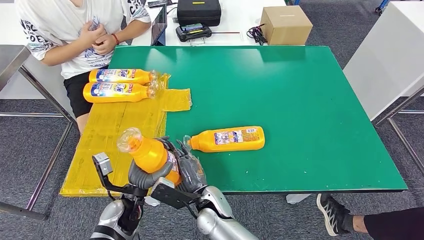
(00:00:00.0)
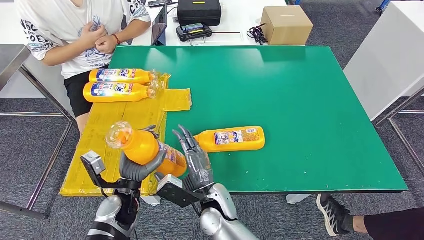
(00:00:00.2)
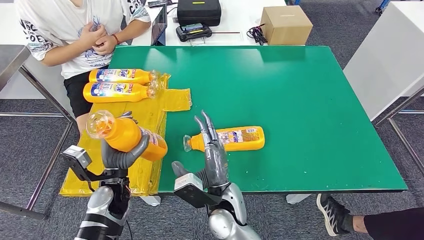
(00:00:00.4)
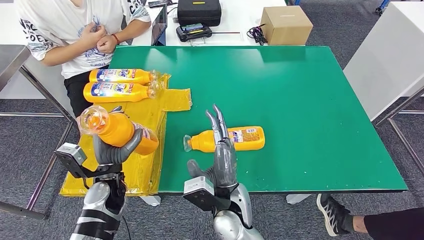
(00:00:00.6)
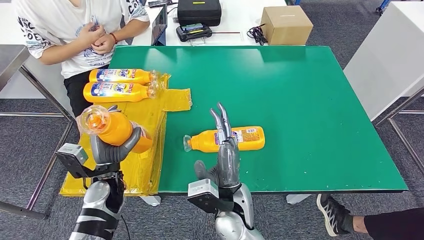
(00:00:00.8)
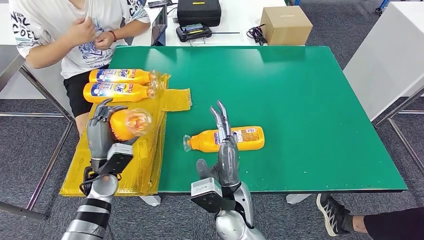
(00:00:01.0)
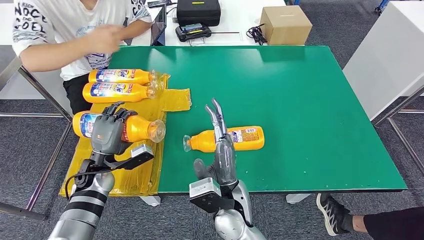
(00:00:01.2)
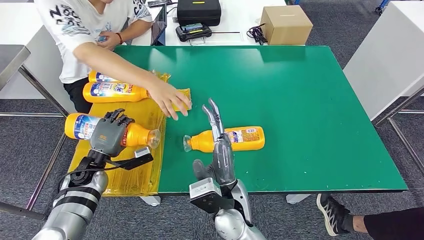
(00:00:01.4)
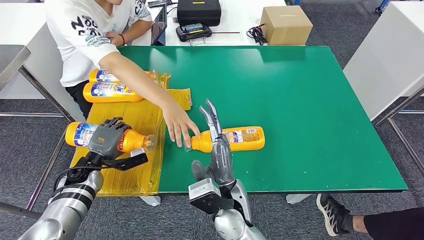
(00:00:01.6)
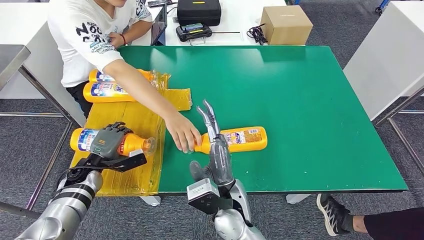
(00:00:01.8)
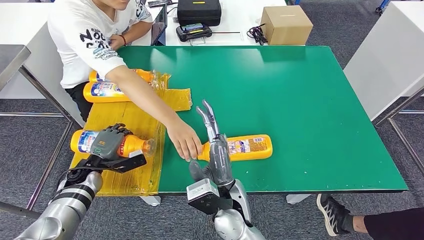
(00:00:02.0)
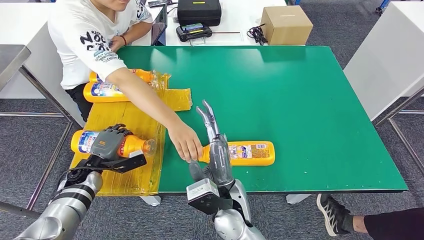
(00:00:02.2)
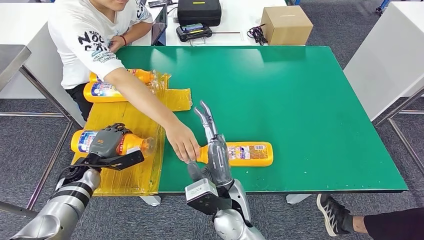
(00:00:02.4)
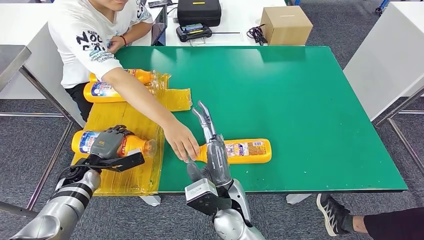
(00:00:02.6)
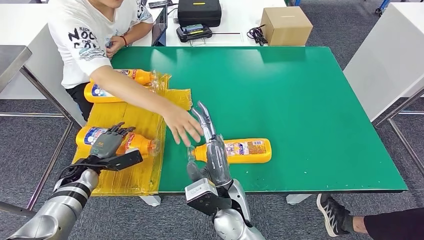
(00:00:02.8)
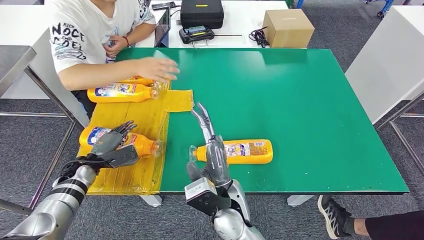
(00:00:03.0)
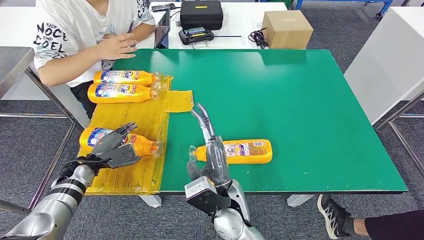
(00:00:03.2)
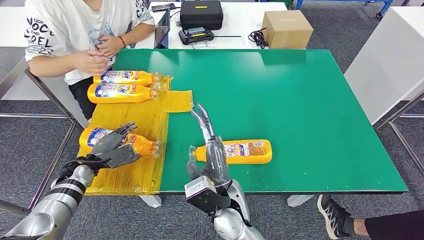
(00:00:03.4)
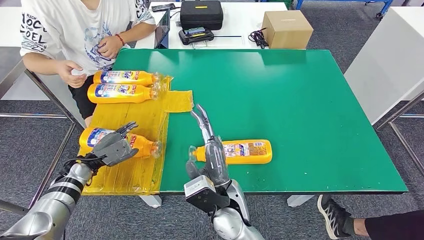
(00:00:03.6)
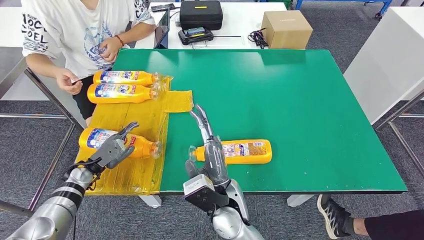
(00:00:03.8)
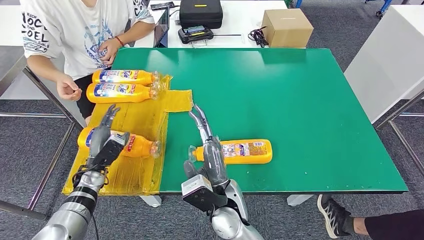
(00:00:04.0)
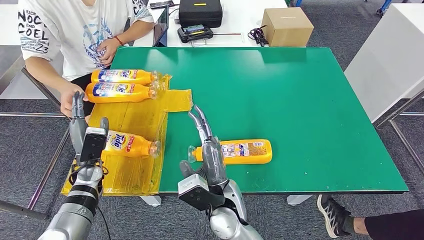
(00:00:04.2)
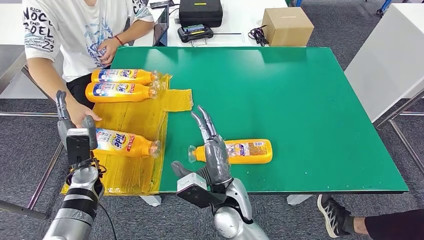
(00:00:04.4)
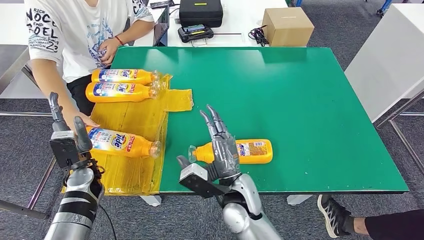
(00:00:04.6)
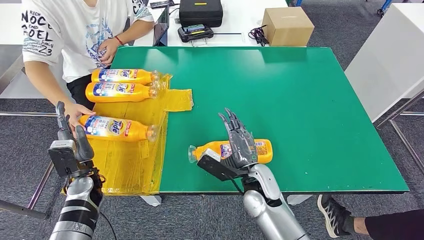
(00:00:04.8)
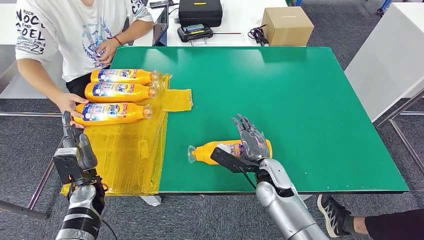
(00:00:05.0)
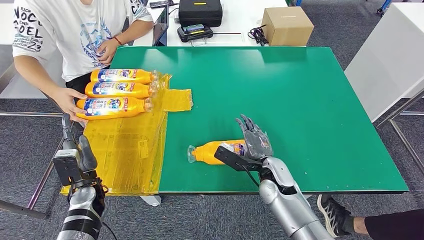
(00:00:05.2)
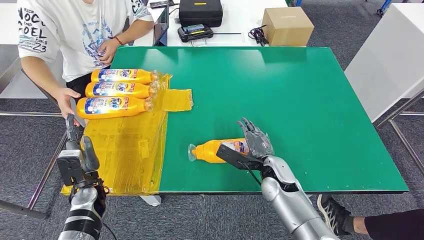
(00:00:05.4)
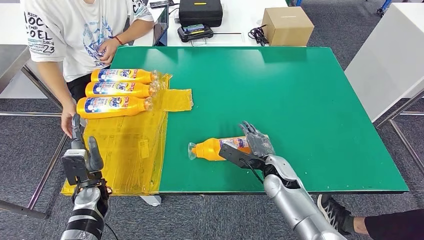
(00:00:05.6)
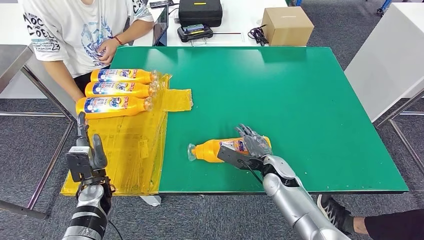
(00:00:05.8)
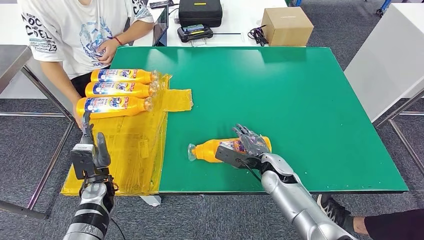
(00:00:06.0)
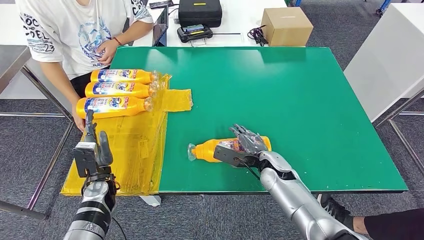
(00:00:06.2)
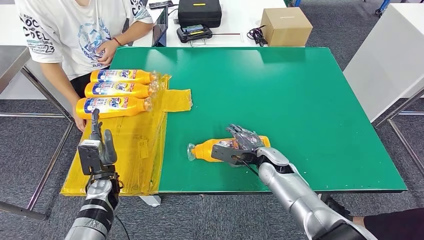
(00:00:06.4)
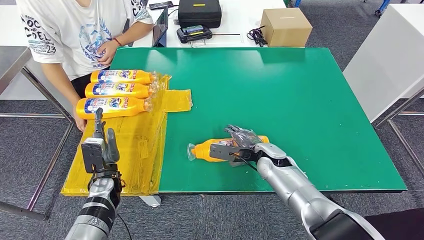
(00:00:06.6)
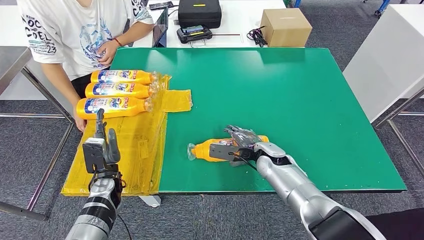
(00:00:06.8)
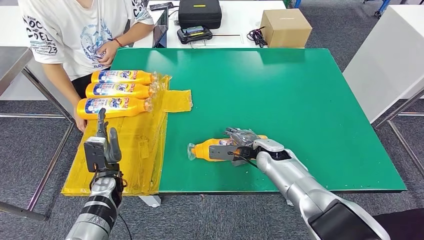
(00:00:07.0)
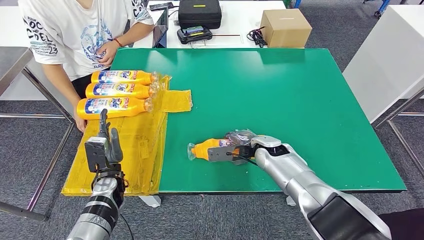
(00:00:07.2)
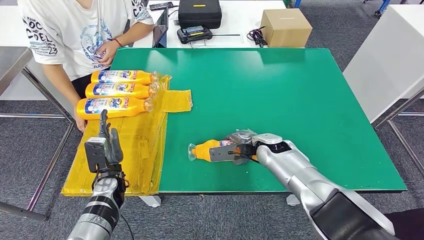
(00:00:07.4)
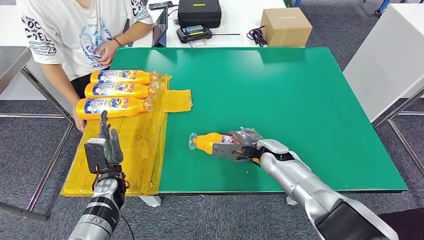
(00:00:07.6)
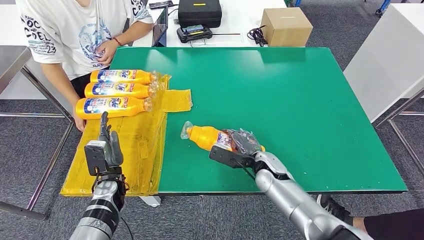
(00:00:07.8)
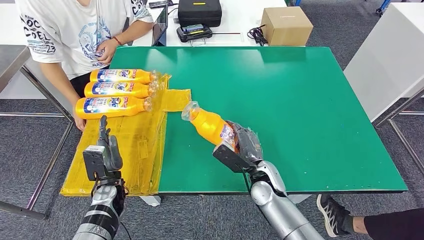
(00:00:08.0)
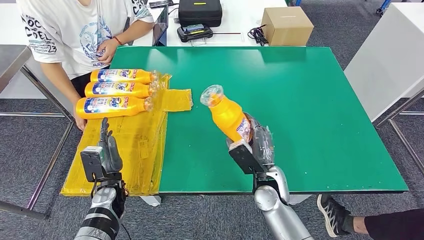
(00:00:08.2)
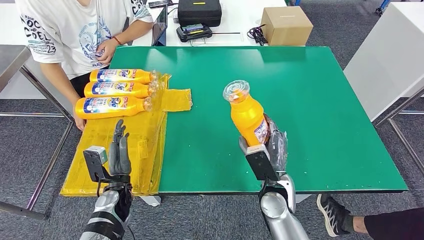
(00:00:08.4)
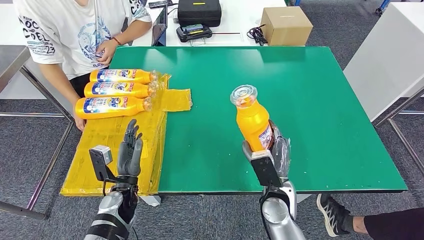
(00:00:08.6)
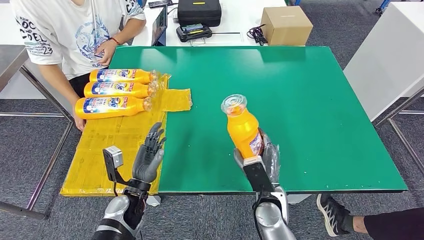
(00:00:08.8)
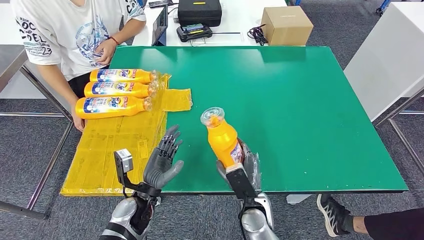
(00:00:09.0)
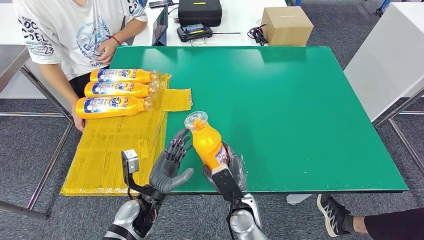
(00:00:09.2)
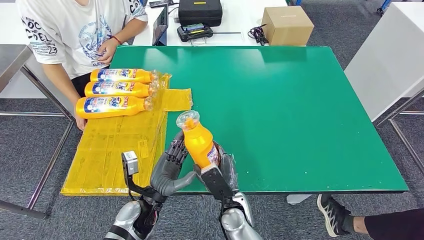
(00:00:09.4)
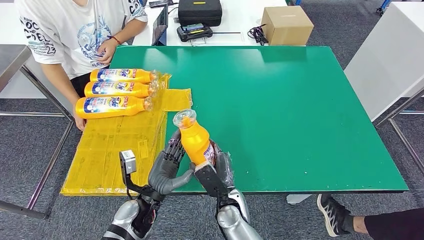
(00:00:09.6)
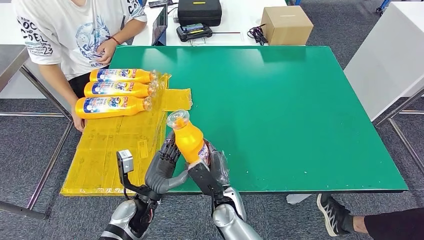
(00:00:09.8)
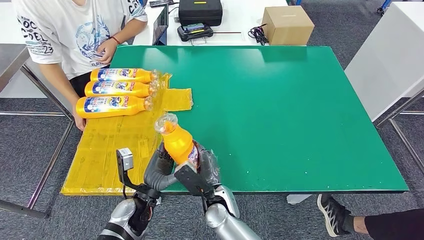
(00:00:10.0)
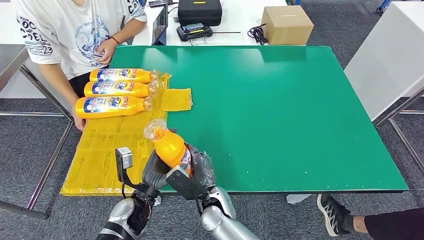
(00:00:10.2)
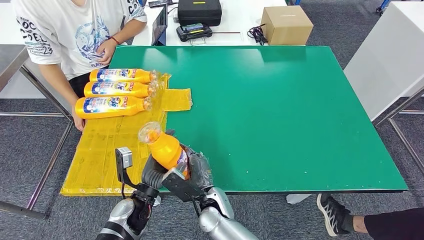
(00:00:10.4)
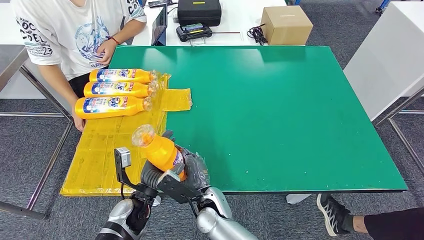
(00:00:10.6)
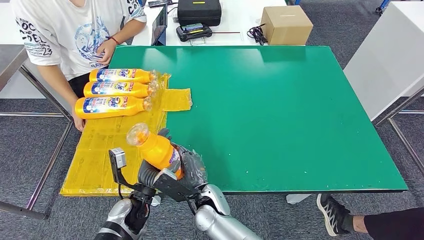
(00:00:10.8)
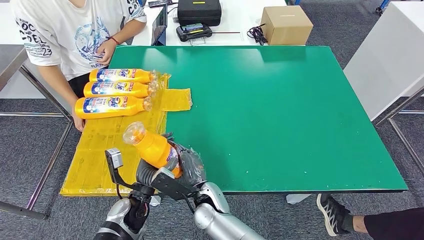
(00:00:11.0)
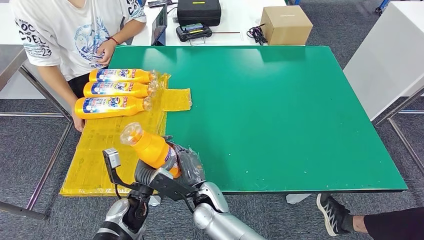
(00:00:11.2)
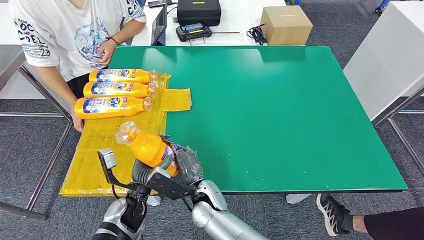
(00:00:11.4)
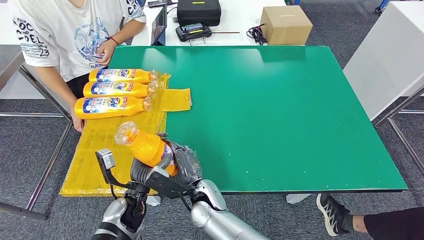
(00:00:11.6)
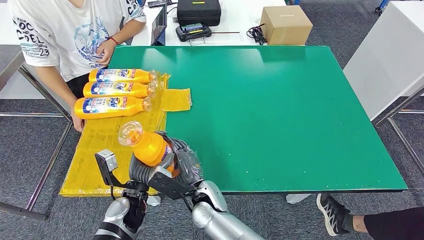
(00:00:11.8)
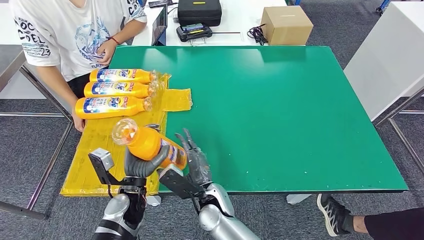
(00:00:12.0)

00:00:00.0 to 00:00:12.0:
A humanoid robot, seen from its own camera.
Step, 00:00:00.0 to 00:00:03.4: Flip the fast-moving consumer goods bottle to the front side.
Step, 00:00:03.8 to 00:00:11.6: Pick up the fast-moving consumer goods bottle from the table.
00:00:09.0 to 00:00:10.4: The right hand shifts about 10 cm to the left.

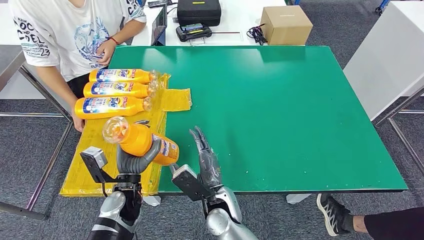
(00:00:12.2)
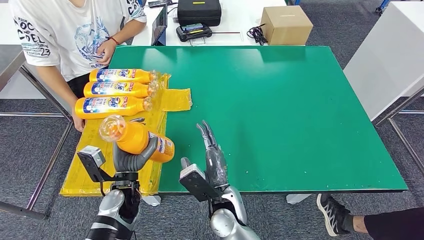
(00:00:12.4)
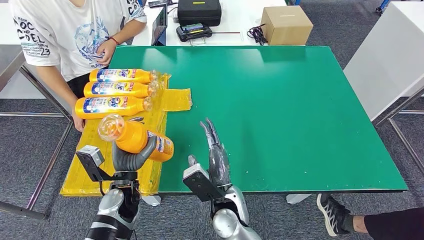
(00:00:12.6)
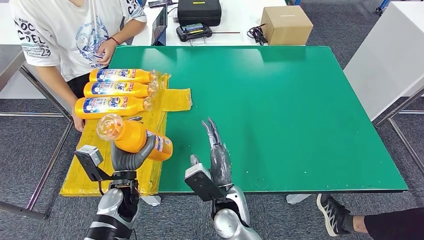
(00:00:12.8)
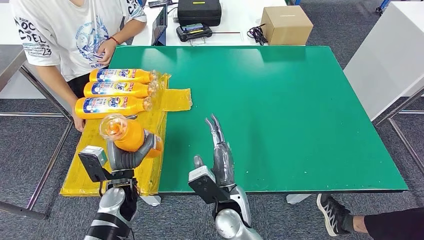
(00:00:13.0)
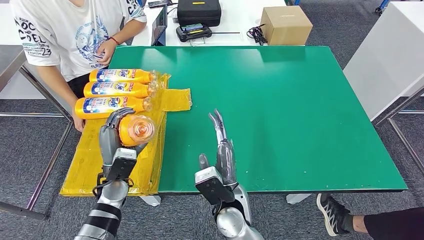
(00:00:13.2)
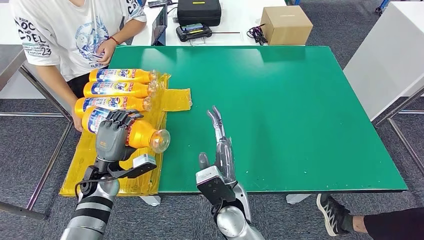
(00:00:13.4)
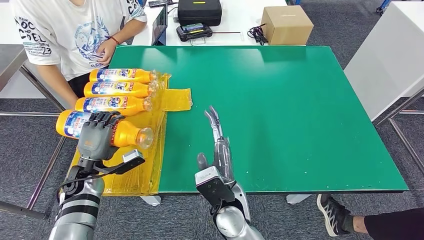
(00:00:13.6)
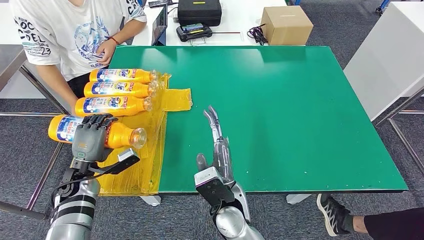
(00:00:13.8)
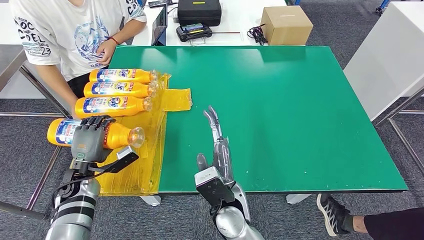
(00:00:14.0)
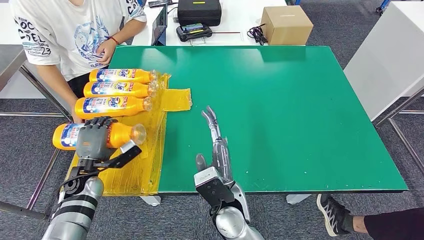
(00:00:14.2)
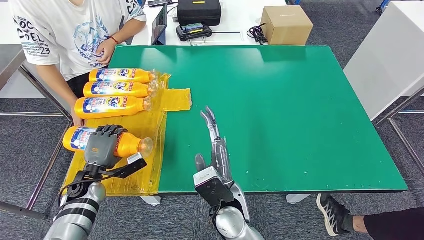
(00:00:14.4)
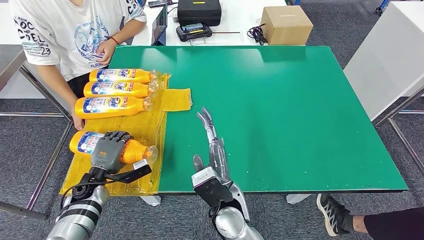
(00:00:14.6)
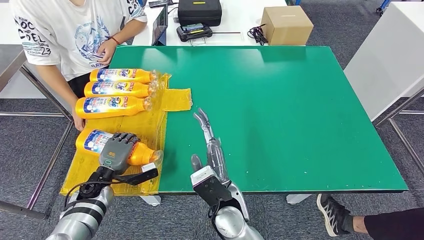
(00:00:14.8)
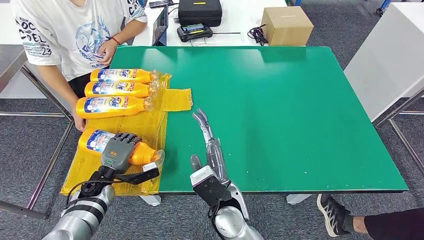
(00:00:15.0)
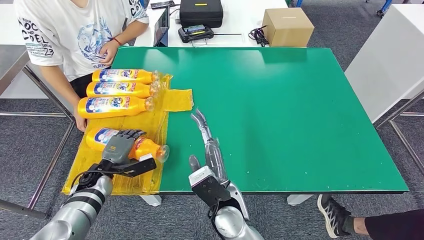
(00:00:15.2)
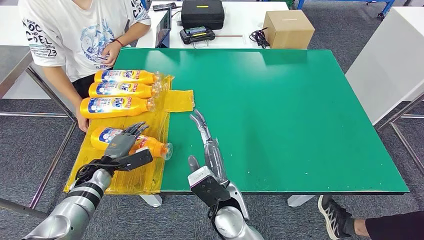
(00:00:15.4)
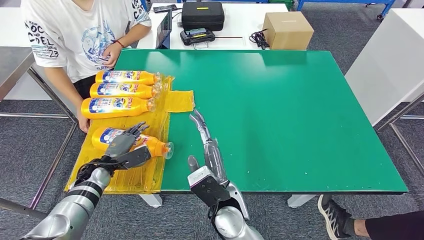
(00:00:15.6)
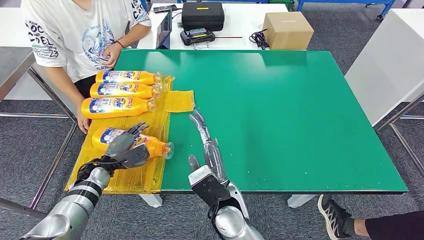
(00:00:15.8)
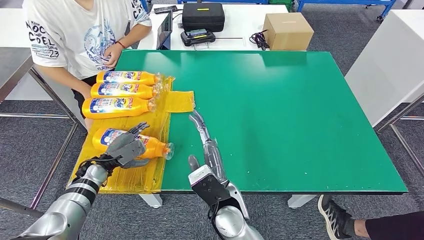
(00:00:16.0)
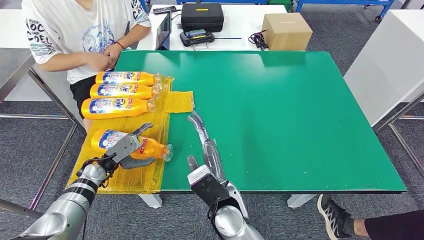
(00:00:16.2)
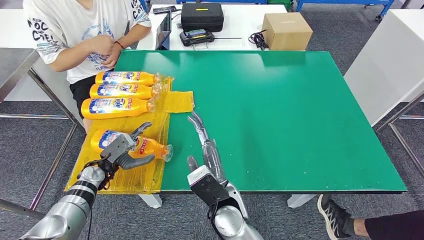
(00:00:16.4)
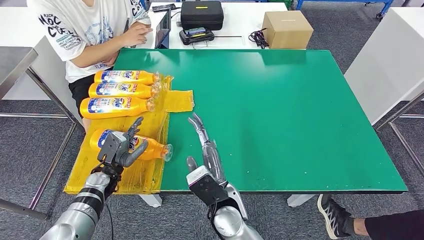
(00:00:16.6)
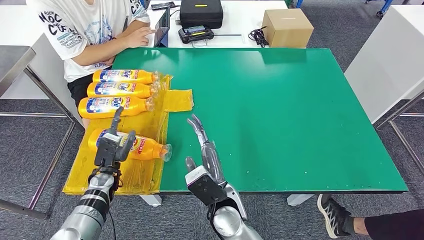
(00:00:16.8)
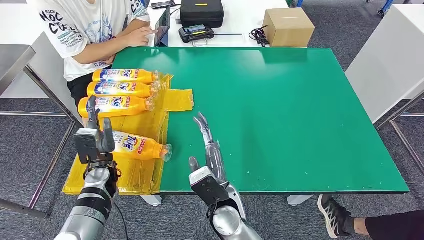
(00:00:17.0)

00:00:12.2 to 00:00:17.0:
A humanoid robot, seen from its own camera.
Step, 00:00:12.2 to 00:00:16.8: Flip the fast-moving consumer goods bottle to the front side.
00:00:12.2 to 00:00:13.8: The left hand goes about 15 cm to the left; the right hand shifts about 5 cm upward.
